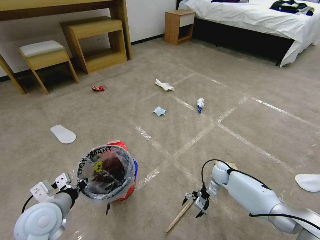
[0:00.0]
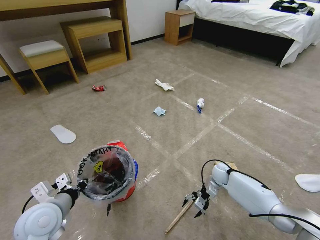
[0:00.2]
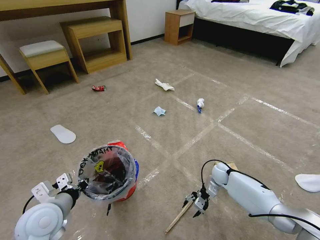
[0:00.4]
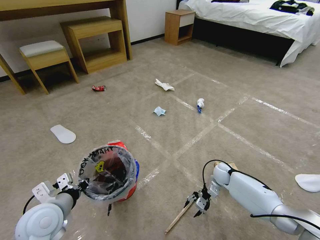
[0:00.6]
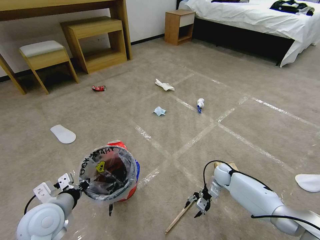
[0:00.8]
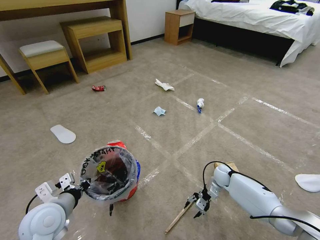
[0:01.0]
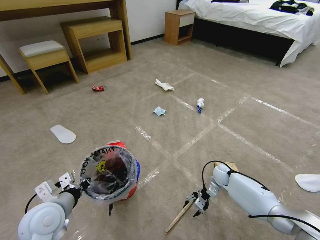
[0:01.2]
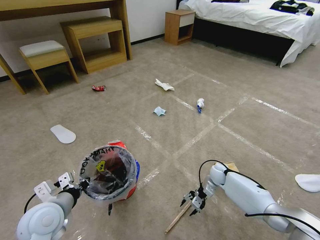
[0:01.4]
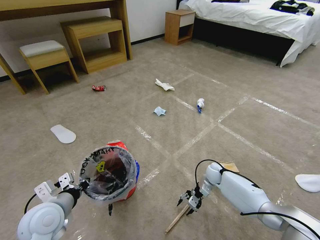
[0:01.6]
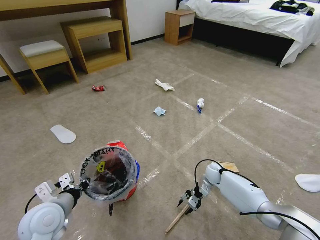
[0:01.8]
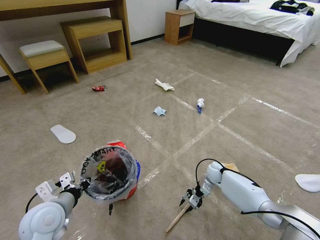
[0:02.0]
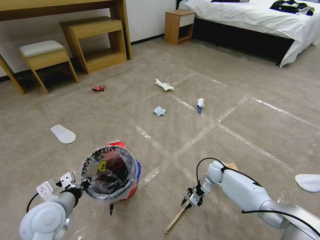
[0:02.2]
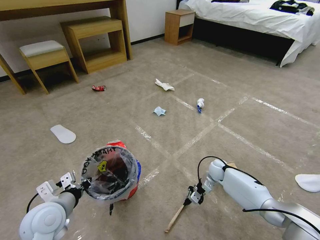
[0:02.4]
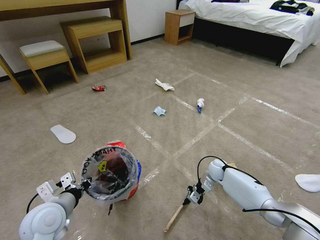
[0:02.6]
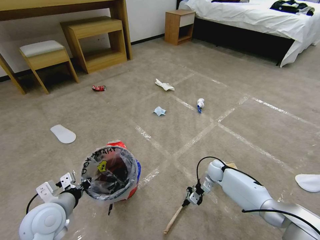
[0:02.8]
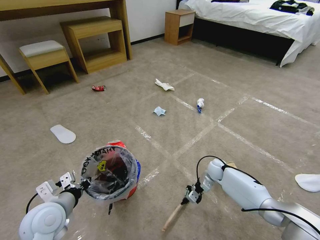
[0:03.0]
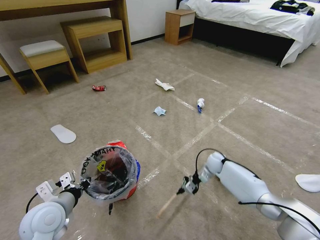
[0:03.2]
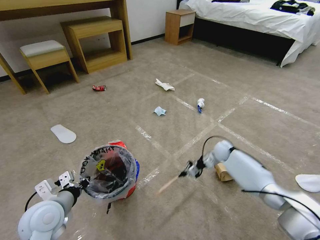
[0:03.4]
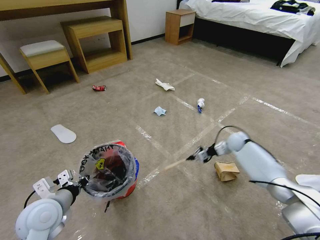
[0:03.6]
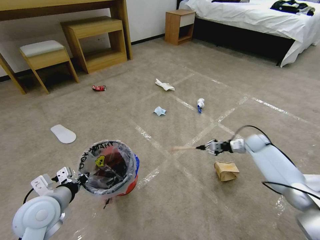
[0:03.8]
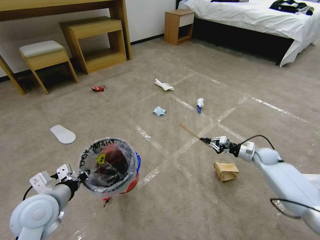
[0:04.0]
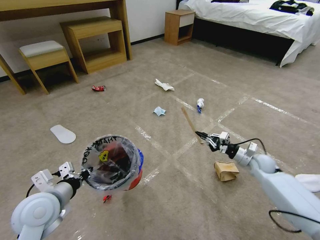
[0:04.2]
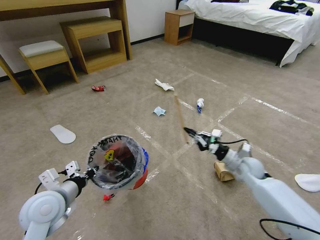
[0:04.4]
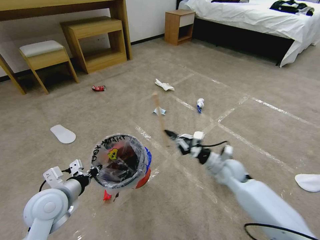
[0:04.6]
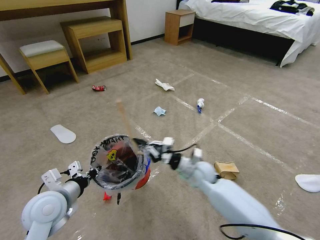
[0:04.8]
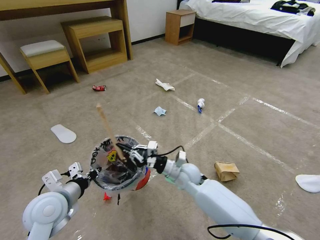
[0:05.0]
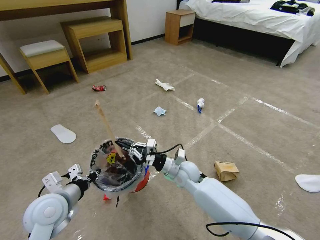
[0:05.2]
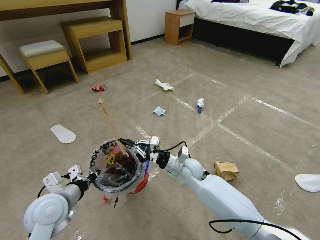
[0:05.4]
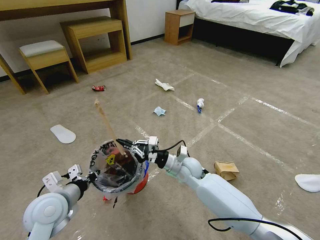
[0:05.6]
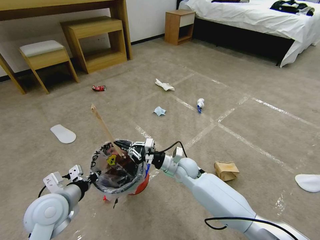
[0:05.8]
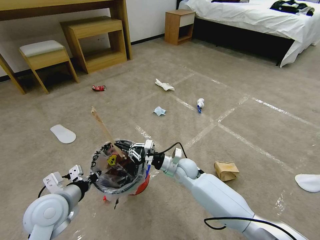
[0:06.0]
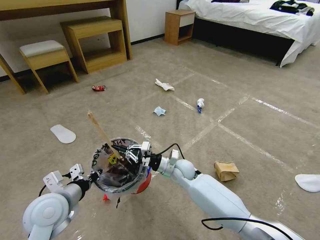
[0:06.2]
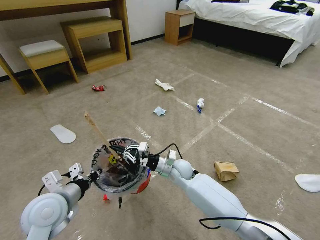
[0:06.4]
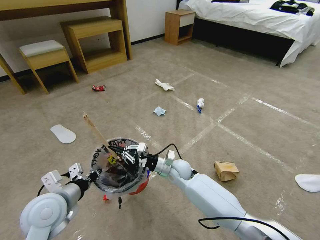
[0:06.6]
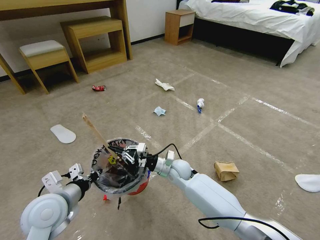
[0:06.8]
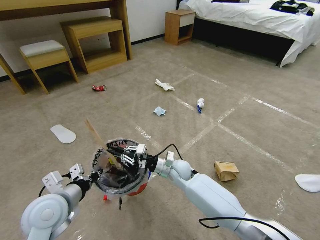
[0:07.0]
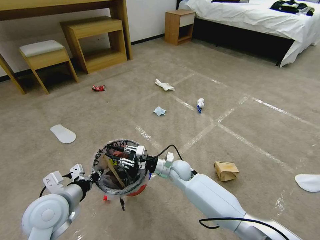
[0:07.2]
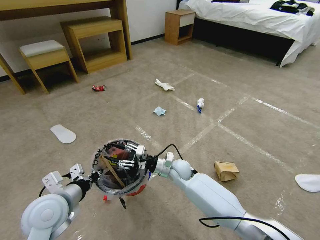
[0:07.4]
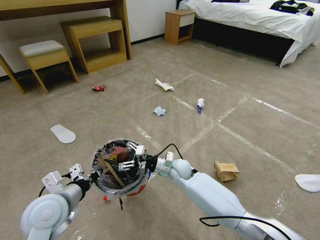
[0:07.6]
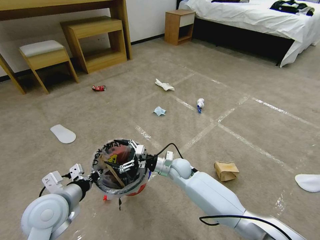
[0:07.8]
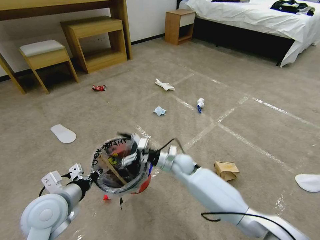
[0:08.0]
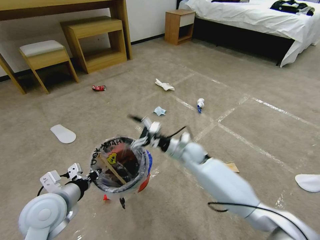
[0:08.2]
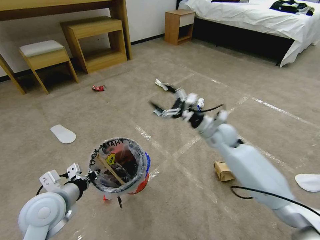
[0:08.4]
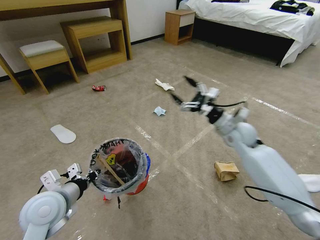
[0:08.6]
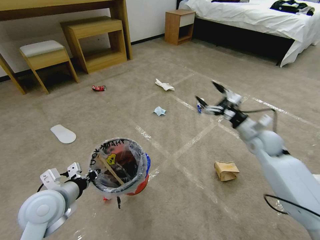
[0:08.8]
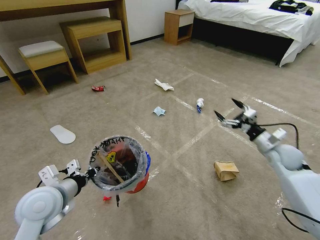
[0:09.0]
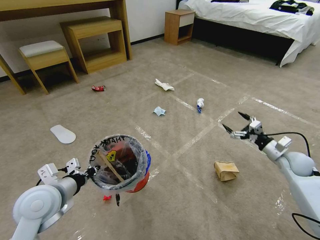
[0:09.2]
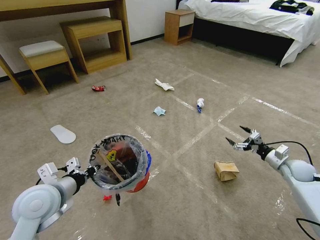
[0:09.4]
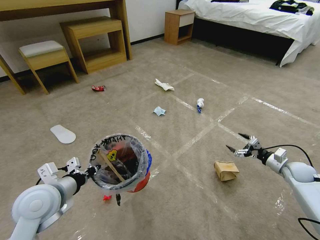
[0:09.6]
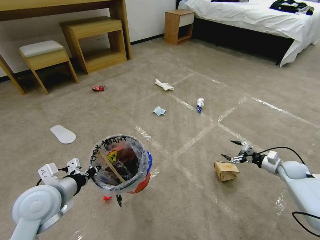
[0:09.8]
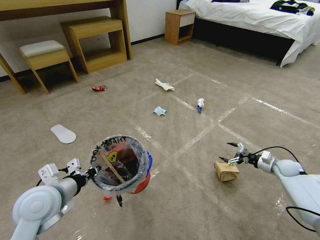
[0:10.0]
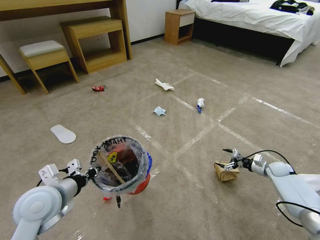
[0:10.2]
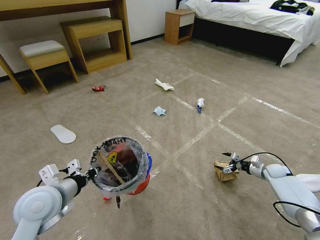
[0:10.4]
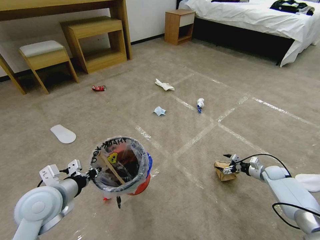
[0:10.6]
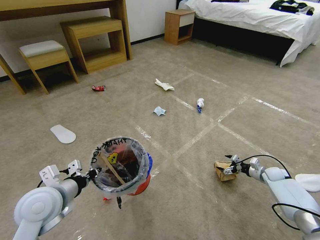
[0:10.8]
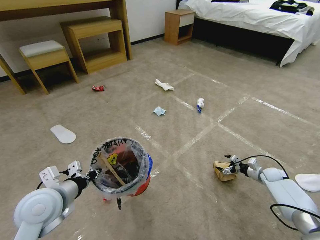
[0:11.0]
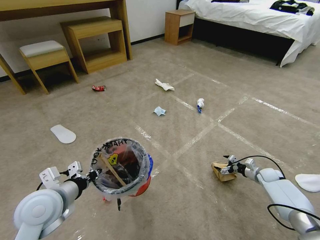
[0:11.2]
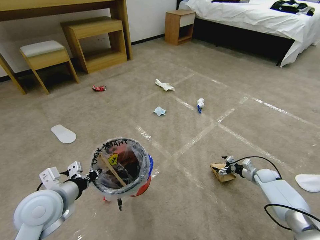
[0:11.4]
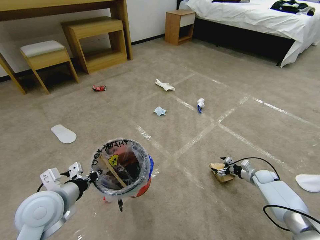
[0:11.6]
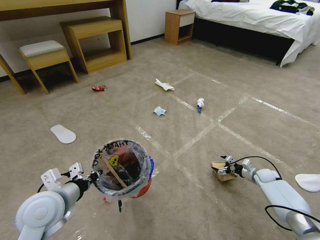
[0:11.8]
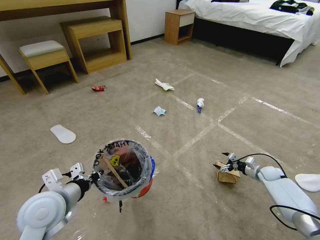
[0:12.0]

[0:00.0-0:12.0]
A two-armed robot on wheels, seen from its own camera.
Task of the whole recording: Pick up the trash bin and place the garbage on the floor into it.
0:00.0 to 0:01.6: The grippers make only small movements.
0:01.6 to 0:03.0: The right gripper closes up.
0:03.0 to 0:04.4: The right gripper heads upward and backward, covering roughly 15 cm, and travels to the right and back again, some 20 cm each way.
0:04.4 to 0:06.0: The right gripper travels to the left by some 25 cm.
0:06.0 to 0:07.6: The right gripper opens its fingers.
0:07.6 to 0:09.0: The right gripper travels to the right by about 35 cm.
0:09.0 to 0:10.4: The right gripper goes approximately 20 cm downward and to the right.
0:10.4 to 0:12.0: The grippers make only small movements.

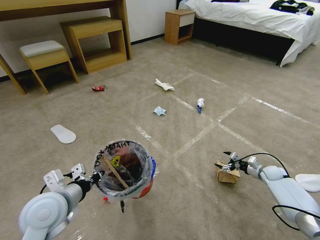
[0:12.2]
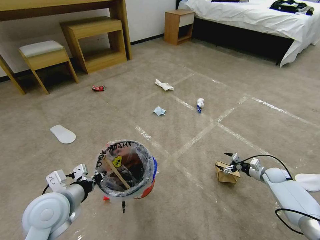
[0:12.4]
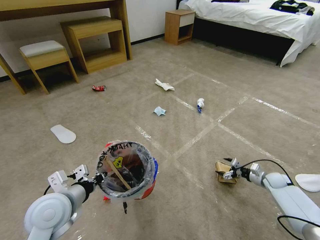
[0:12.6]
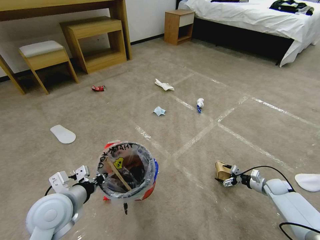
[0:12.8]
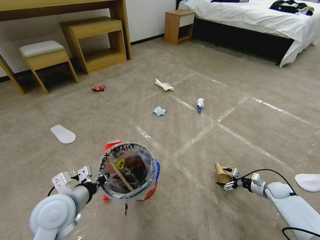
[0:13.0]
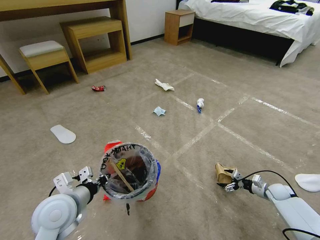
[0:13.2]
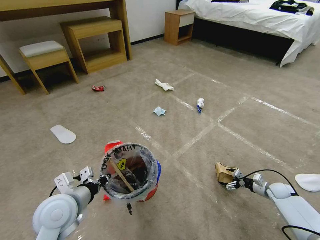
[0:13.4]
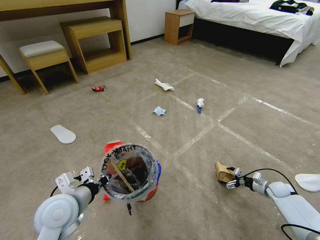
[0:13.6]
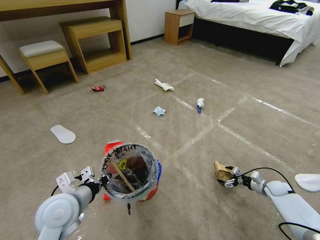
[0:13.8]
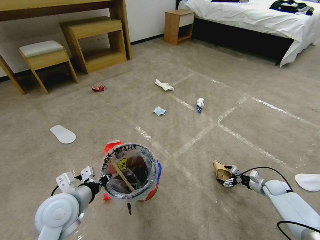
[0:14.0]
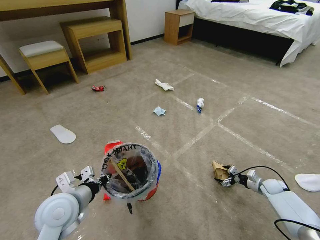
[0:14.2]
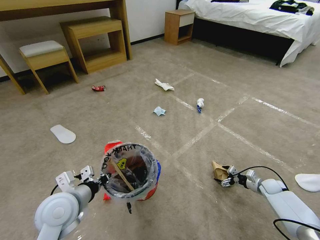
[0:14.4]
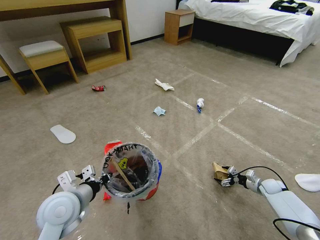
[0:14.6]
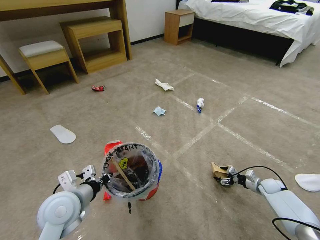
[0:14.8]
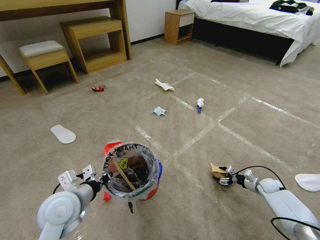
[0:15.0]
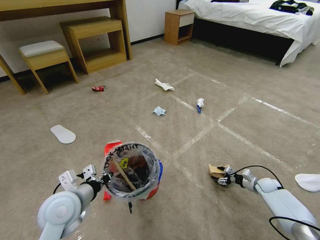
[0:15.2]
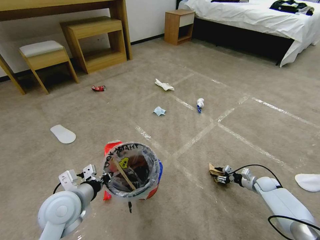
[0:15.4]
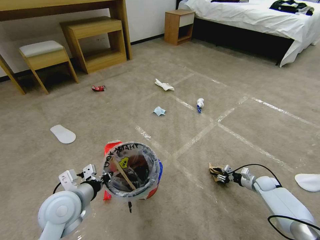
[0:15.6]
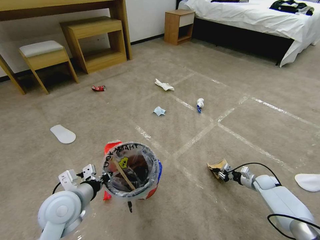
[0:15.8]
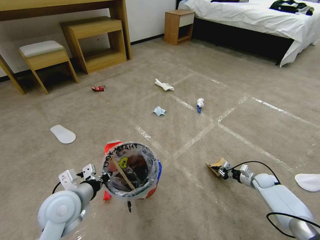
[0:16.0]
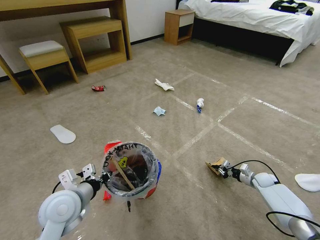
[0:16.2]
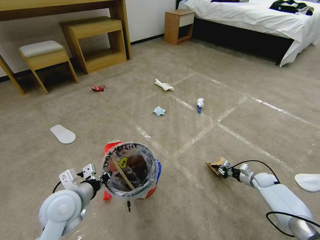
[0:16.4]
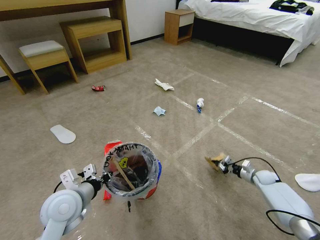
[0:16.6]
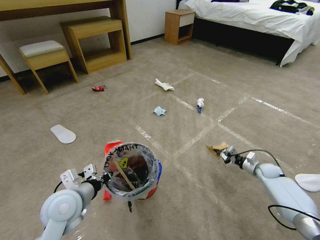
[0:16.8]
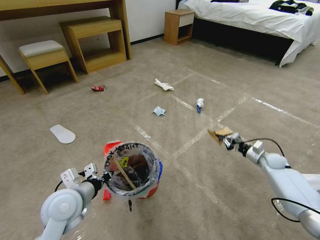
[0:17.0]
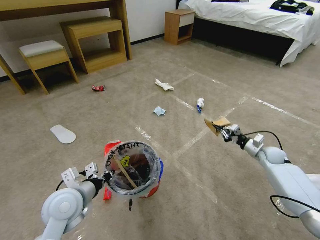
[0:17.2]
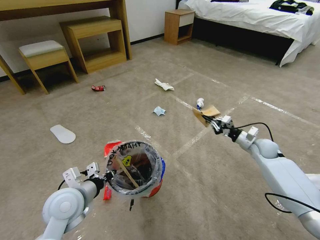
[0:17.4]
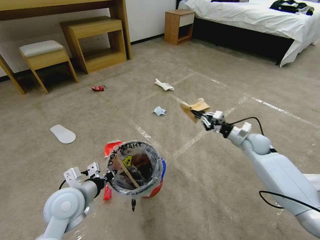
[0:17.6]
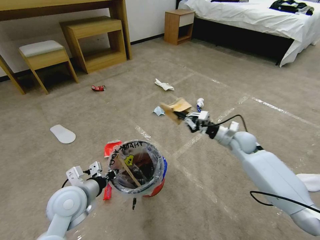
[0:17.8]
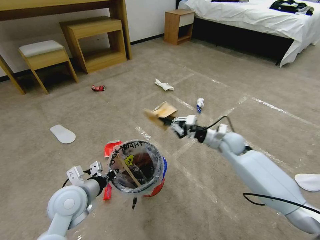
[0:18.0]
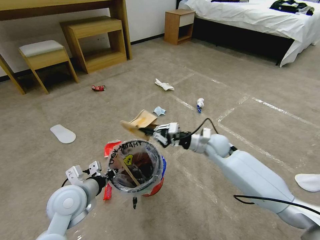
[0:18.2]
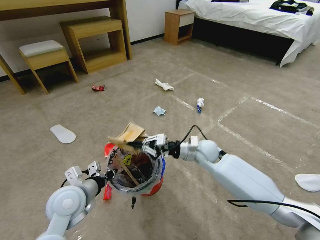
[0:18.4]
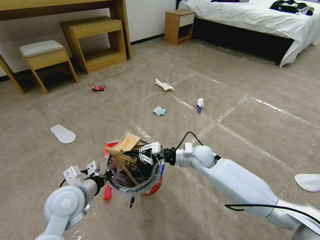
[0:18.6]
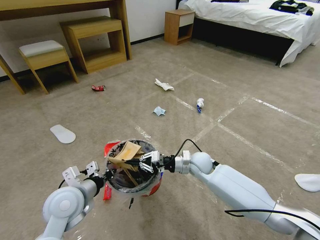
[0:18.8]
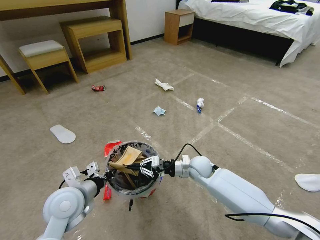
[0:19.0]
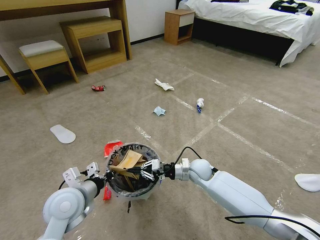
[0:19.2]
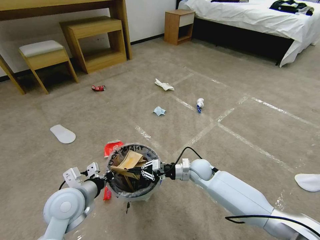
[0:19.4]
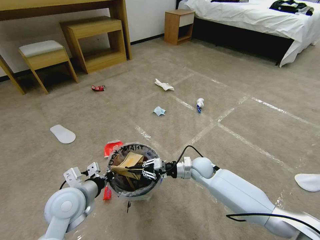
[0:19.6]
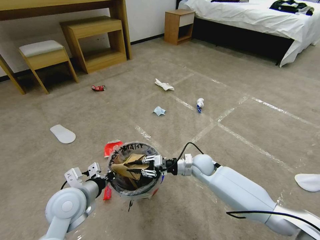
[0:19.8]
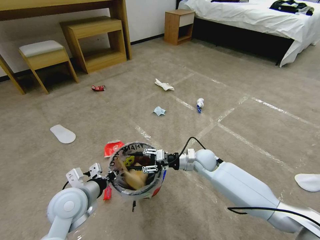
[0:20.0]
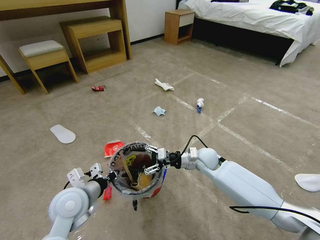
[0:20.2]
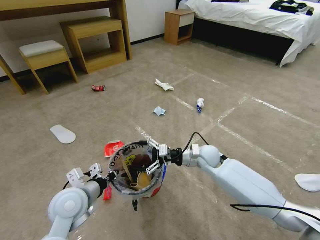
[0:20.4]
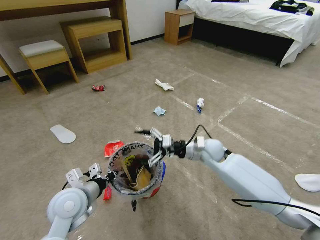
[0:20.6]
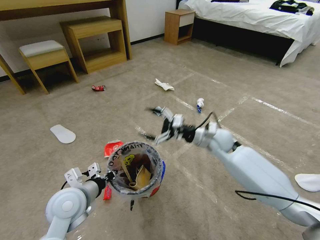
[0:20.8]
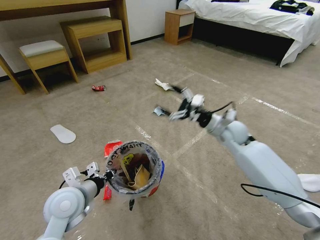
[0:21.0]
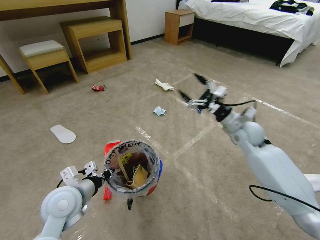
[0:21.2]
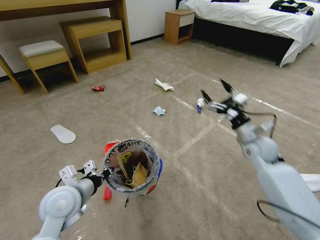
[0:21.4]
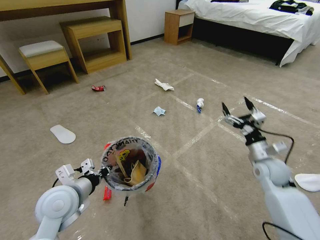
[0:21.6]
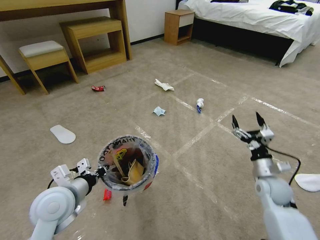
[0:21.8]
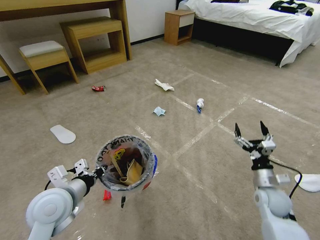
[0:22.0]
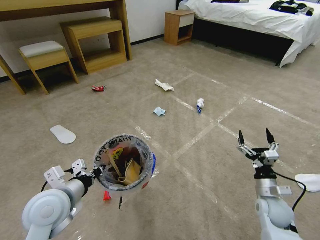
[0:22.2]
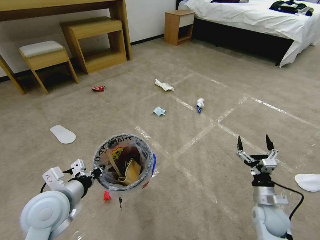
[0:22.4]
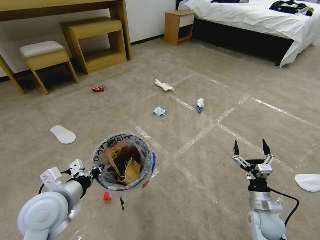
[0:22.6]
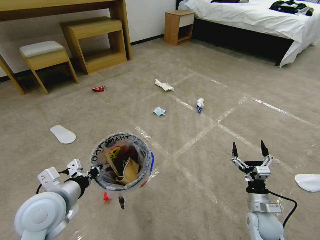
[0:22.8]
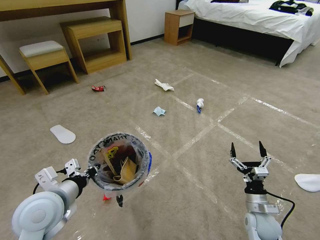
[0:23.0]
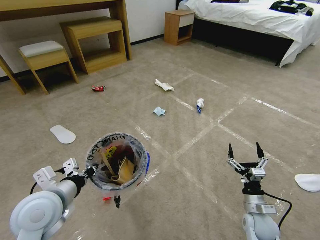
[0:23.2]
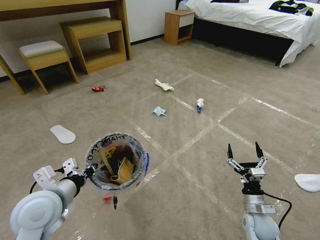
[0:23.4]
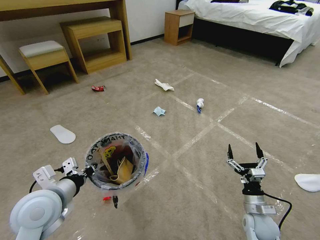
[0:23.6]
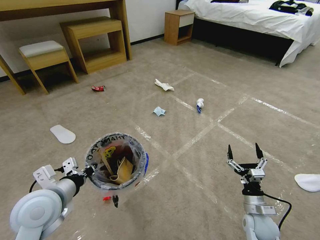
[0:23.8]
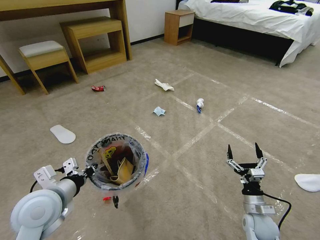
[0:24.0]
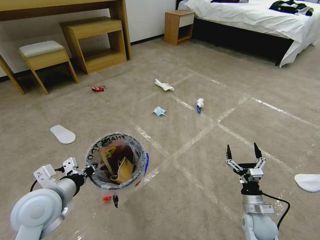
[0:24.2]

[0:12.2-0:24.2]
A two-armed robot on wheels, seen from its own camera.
Task of the whole recording: Pick up the trash bin and place the garbage on the floor into it.
0:12.2 to 0:13.8: The right gripper goes some 5 cm backward.
0:13.8 to 0:15.2: The grippers move only a little.
0:15.2 to 0:16.6: The right gripper closes.
0:16.6 to 0:18.2: The right gripper moves to the left and upward, about 35 cm.
0:18.2 to 0:19.8: The right gripper heads downward, covering some 10 cm.
0:19.8 to 0:21.2: The right gripper is displaced upward and to the right by about 20 cm, and opens its fingers.
0:21.2 to 0:22.6: The left gripper changes place by roughly 5 cm, while the right gripper heads backward and downward, covering about 30 cm.
0:22.6 to 0:24.2: The grippers stay close to where they were, moving slightly.
